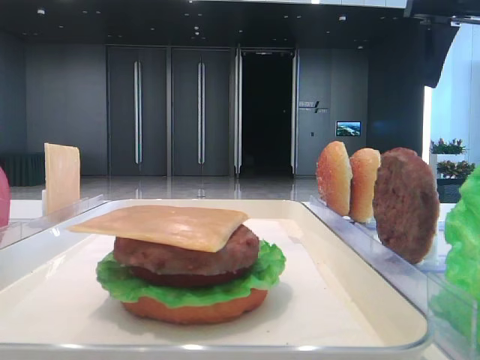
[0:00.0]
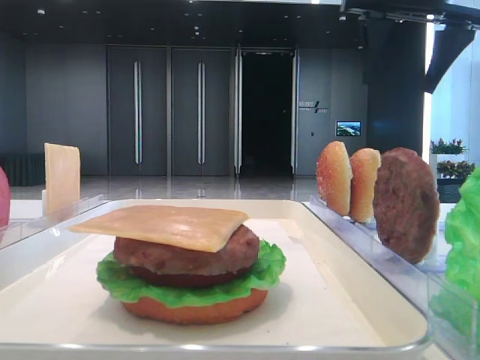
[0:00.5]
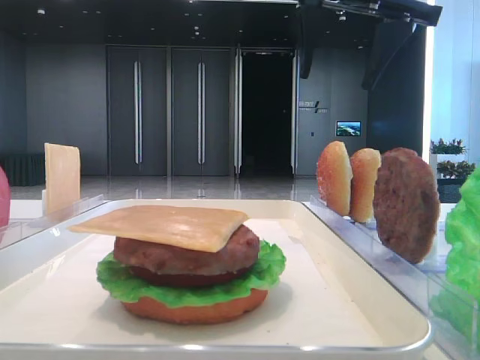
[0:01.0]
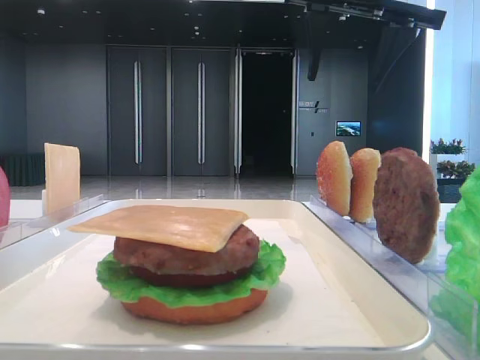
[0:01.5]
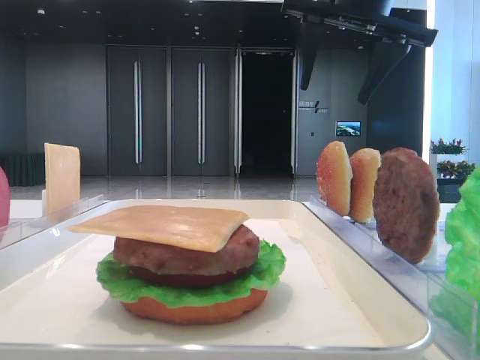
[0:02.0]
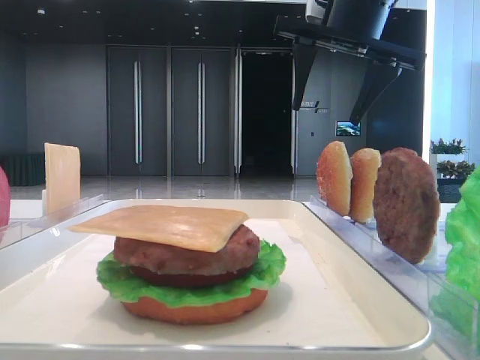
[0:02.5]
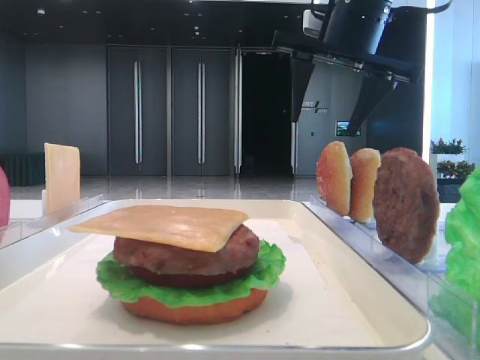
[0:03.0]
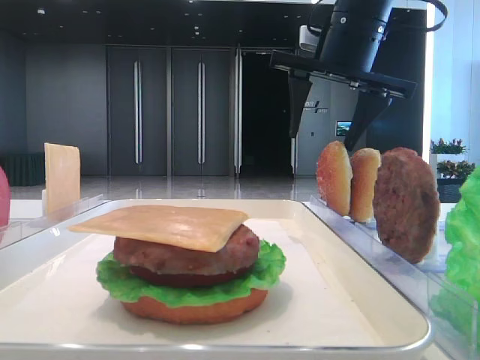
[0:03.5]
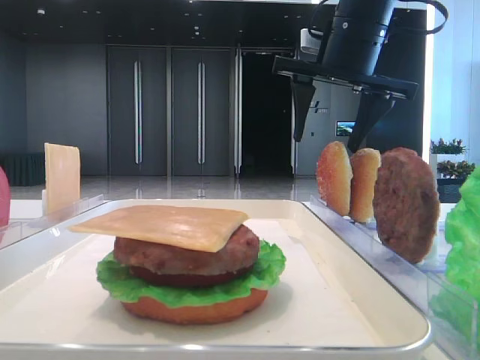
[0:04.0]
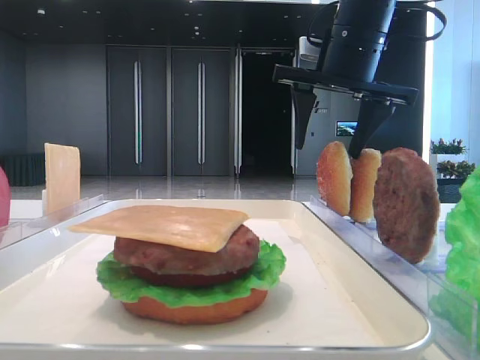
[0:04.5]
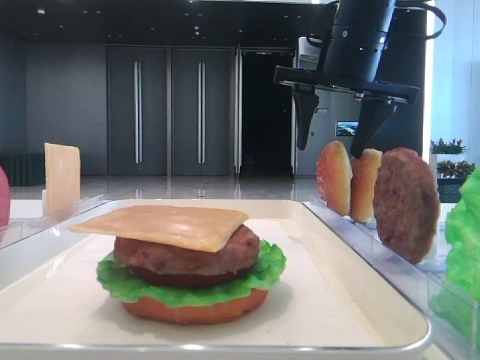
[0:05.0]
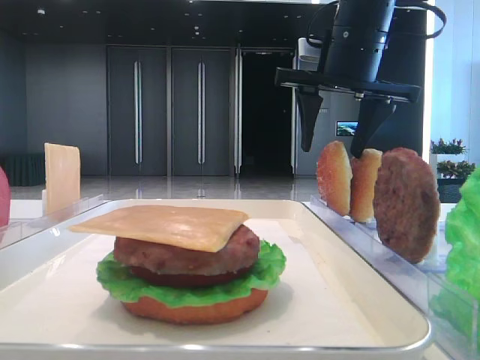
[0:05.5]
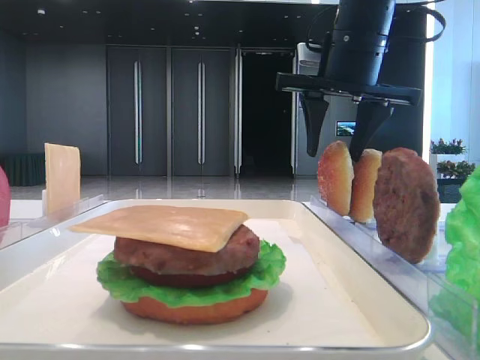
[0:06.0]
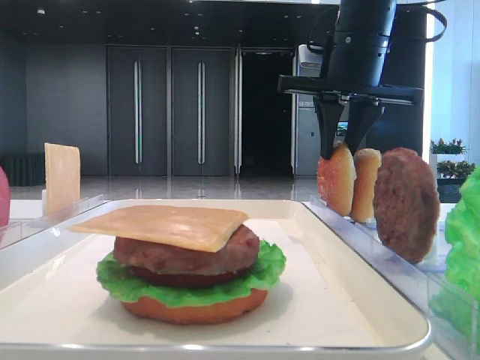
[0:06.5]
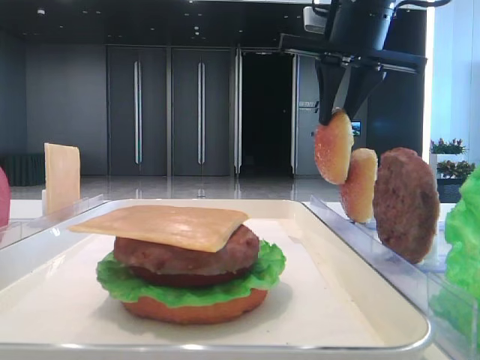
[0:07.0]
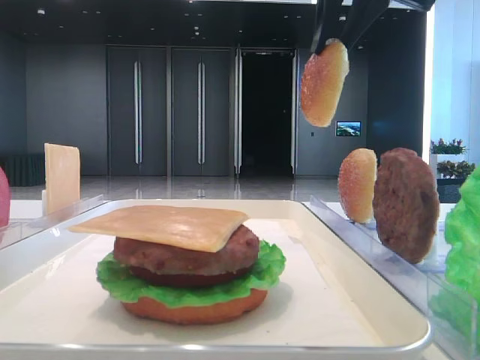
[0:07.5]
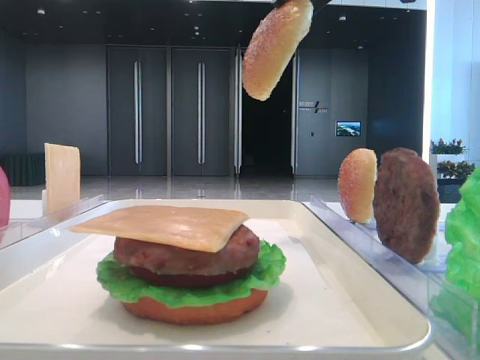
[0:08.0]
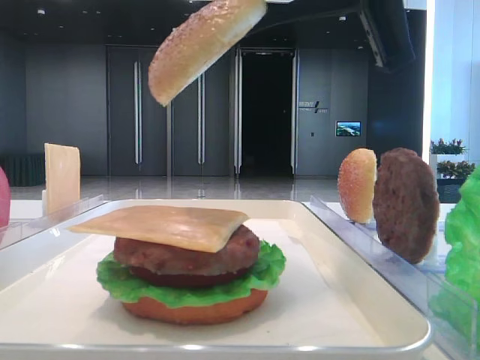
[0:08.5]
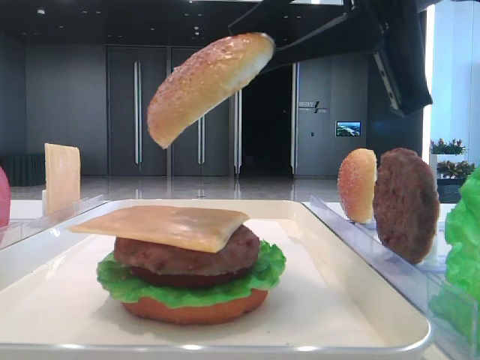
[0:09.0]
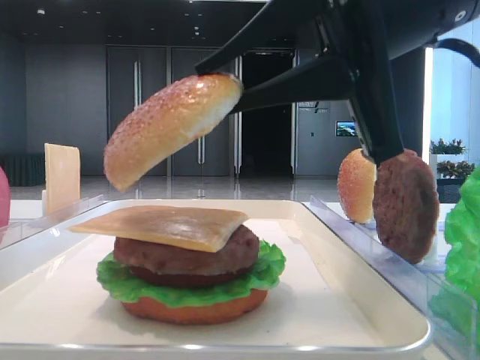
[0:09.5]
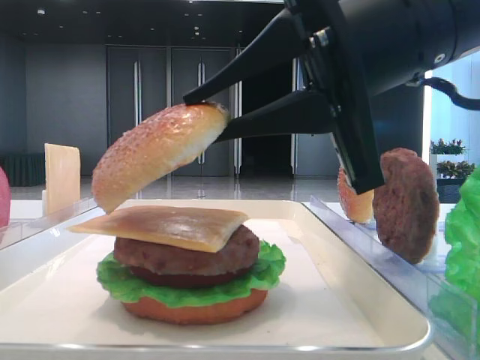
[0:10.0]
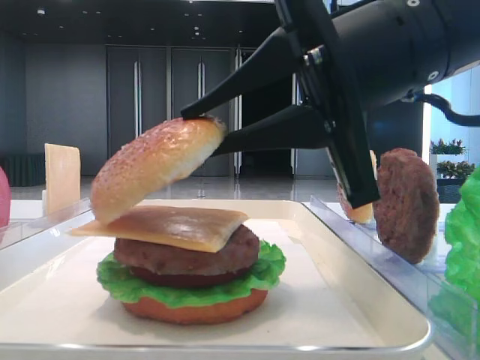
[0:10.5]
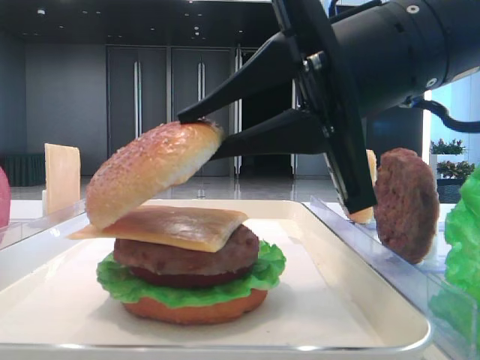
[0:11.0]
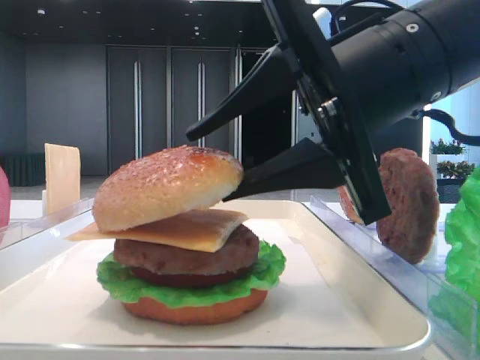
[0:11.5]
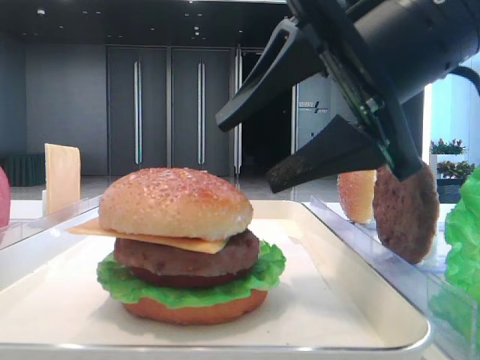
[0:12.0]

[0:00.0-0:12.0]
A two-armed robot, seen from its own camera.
0:00.0 to 0:02.0: The right gripper is displaced to the left by approximately 15 cm.
0:02.0 to 0:04.0: The right gripper goes approximately 5 cm downward.
0:04.0 to 0:06.0: The grippers move only a little.
0:06.0 to 0:08.0: The right gripper is displaced backward and upward by some 15 cm, and closes up.
0:08.0 to 0:10.0: The right gripper travels downward and backward by roughly 15 cm.
0:10.0 to 0:12.0: The right gripper opens its fingers.

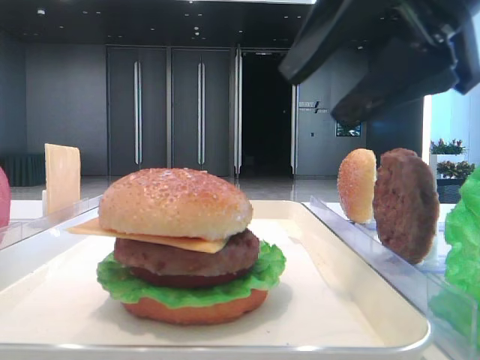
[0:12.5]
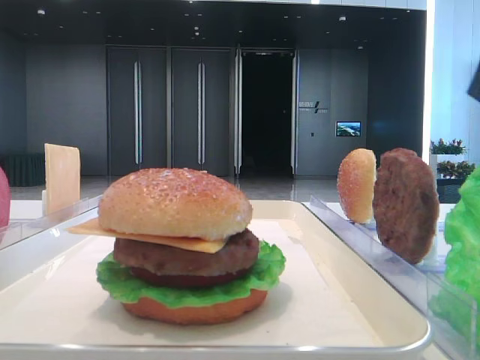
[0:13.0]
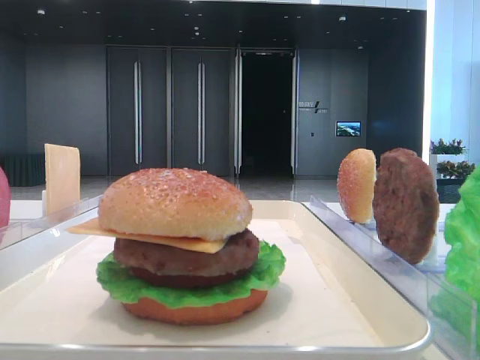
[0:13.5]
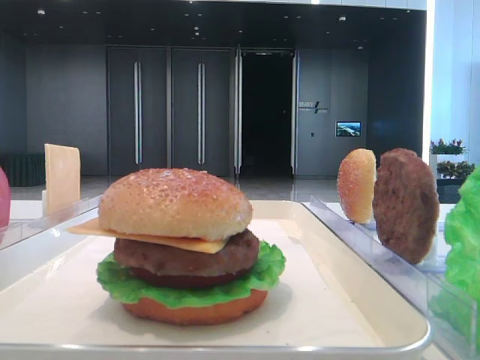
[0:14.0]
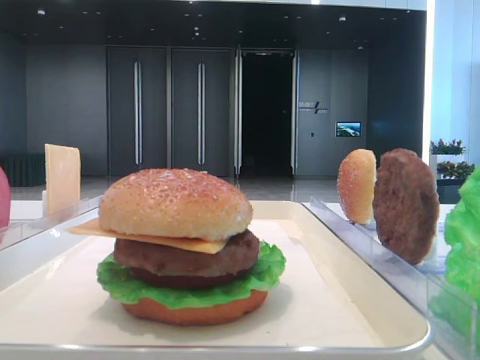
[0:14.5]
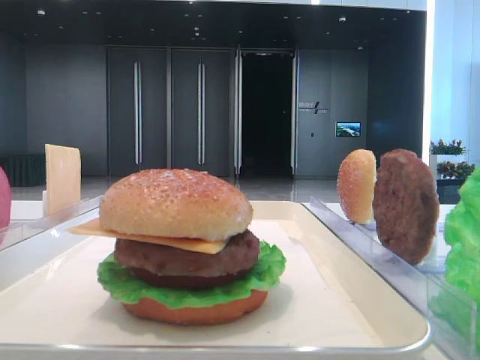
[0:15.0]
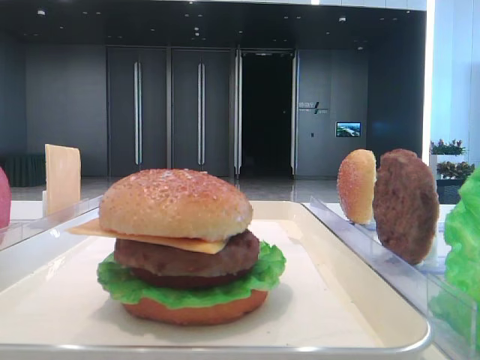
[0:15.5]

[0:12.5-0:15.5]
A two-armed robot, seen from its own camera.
0:12.5 to 0:14.0: The right gripper is displaced to the right and backward by roughly 15 cm.

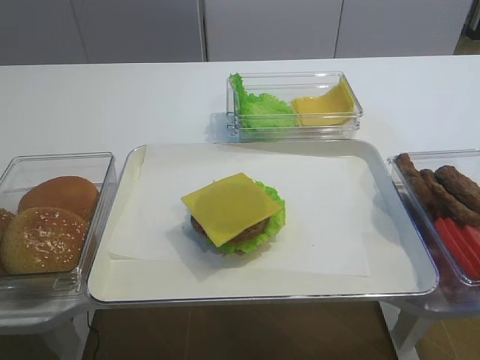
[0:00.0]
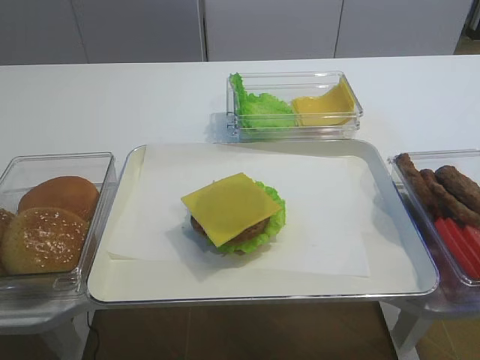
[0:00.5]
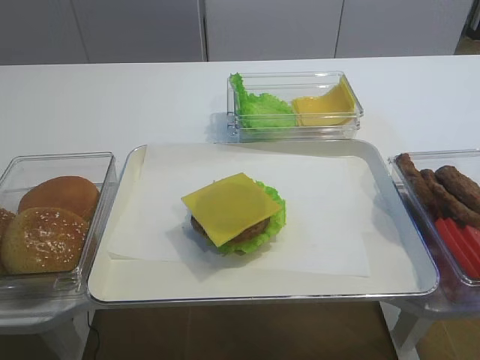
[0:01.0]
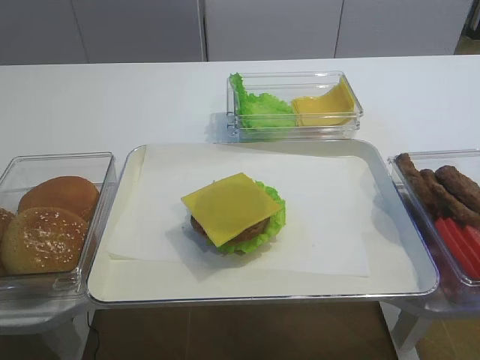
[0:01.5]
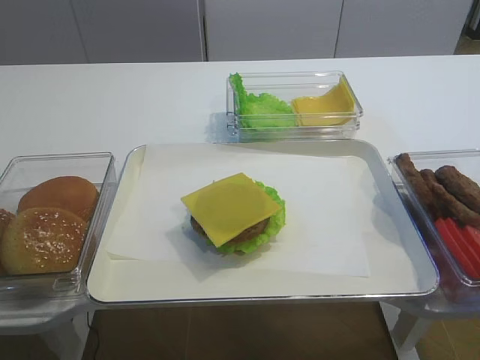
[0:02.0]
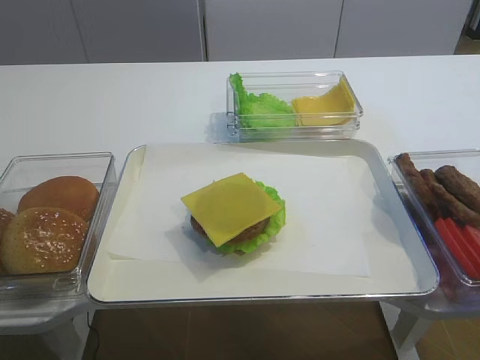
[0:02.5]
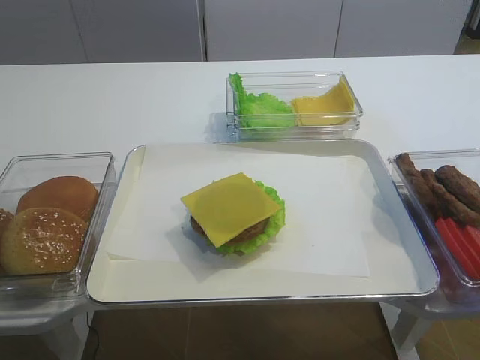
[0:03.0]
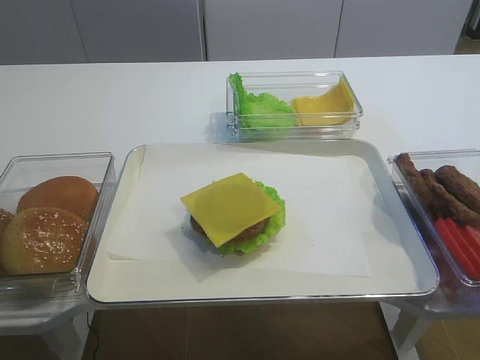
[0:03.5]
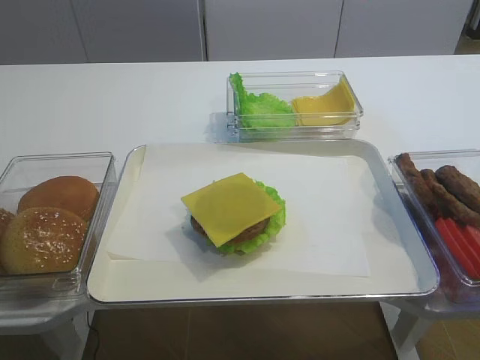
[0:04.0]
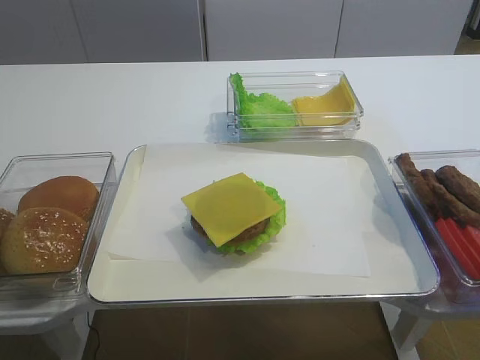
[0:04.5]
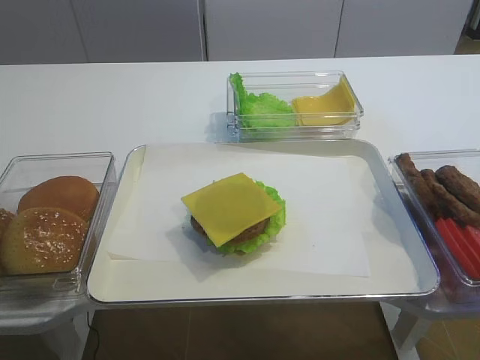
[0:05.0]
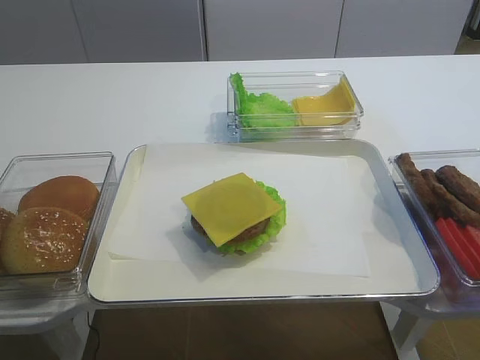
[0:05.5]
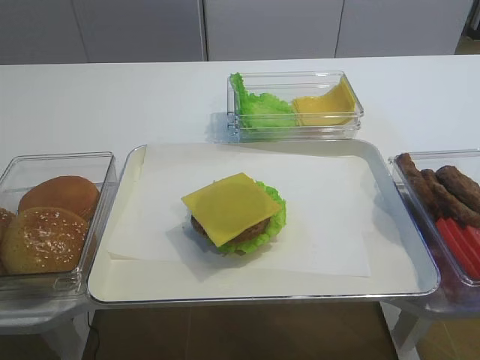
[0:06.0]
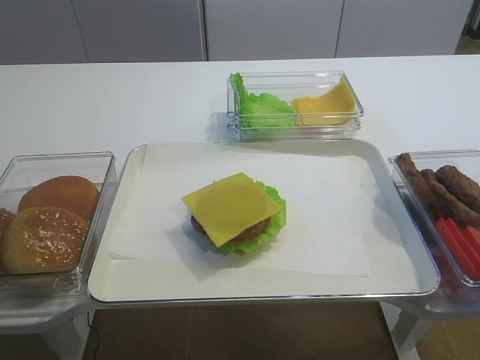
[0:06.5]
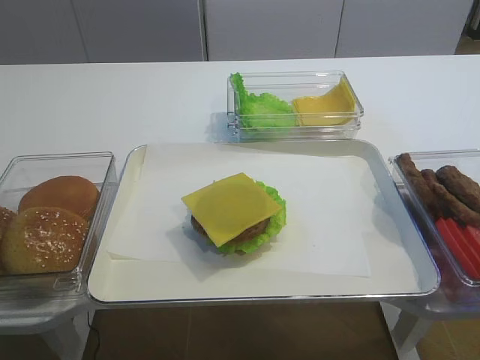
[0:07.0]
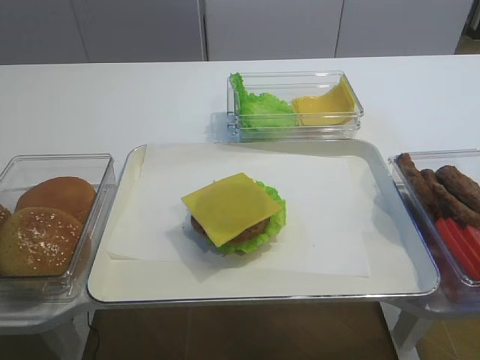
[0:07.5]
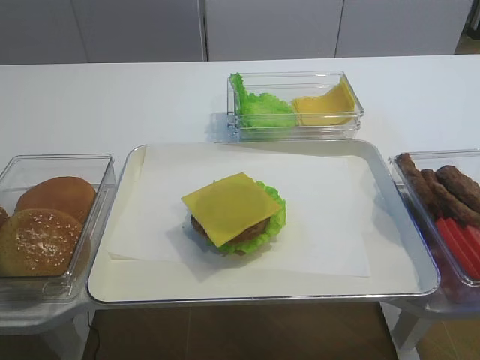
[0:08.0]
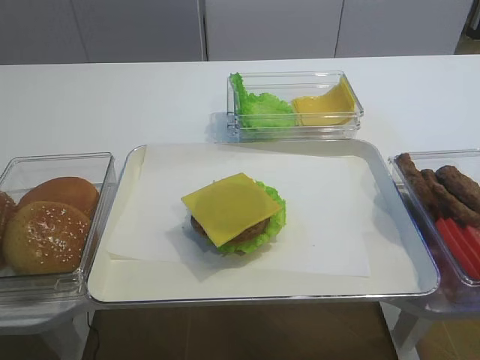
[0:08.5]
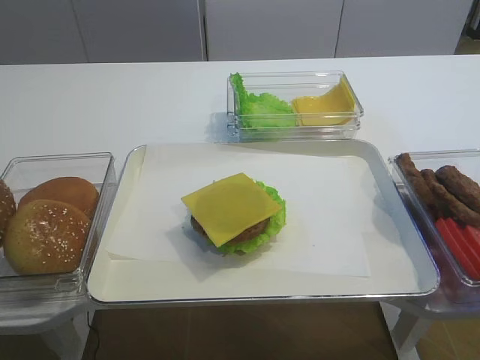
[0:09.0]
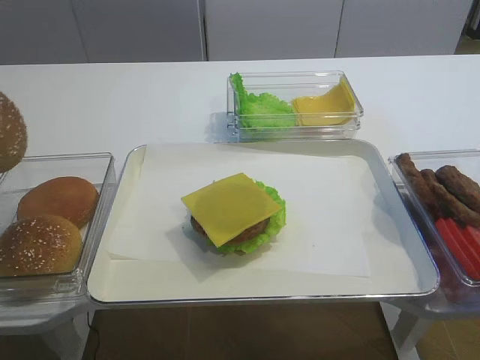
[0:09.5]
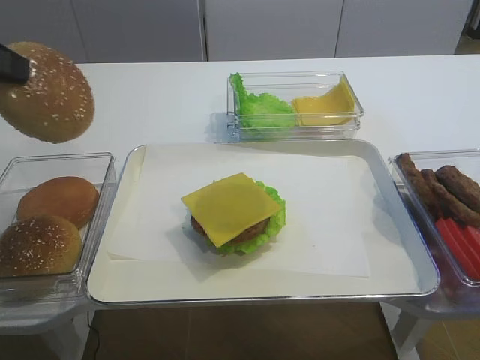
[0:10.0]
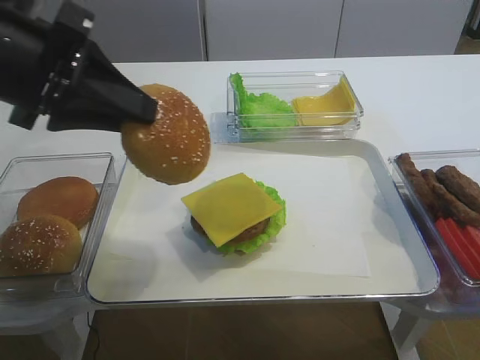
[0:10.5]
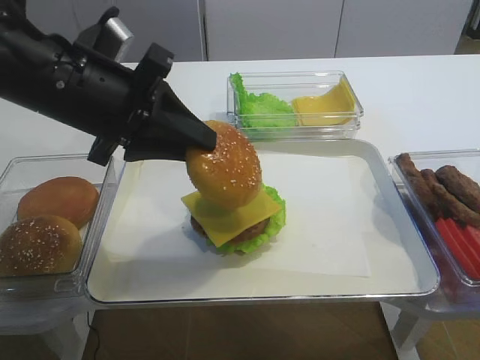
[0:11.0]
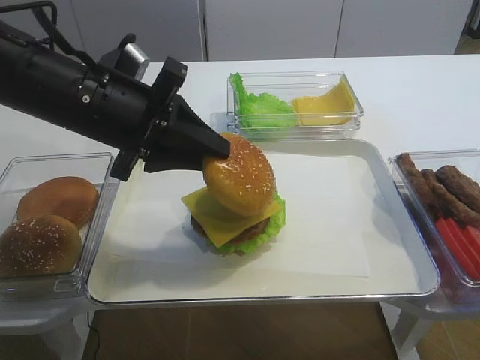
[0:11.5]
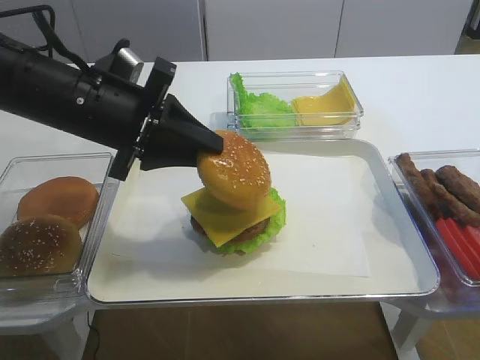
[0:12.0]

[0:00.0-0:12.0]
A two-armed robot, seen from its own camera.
Step, 0:00.0 to 0:09.0: Pick up the hamburger lid with the left gripper.
0:06.0 to 0:08.0: The left gripper closes up.
0:08.0 to 0:10.0: The left gripper travels upward and to the right by approximately 10 cm.
0:10.0 to 0:12.0: The left gripper shifts about 20 cm to the right, downward and forward.
